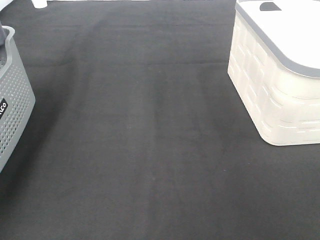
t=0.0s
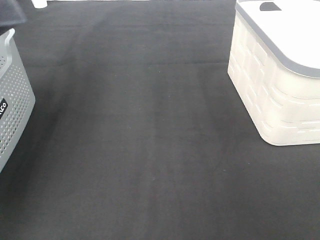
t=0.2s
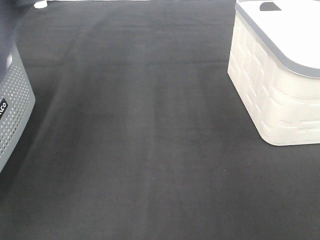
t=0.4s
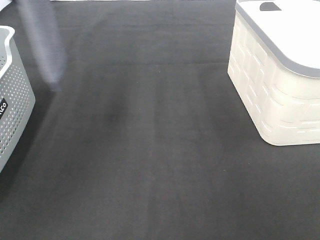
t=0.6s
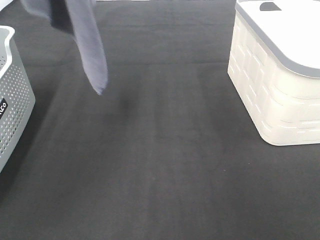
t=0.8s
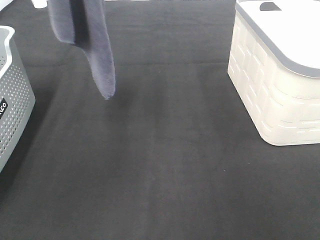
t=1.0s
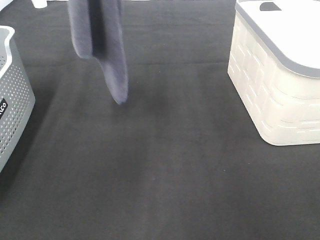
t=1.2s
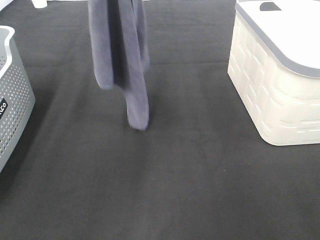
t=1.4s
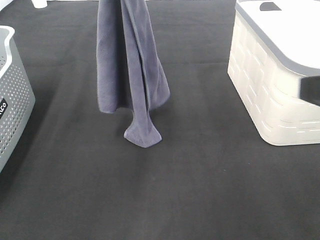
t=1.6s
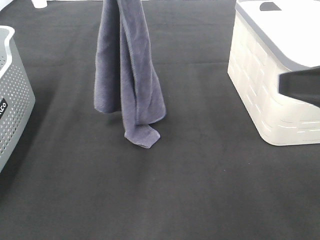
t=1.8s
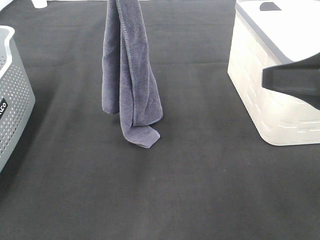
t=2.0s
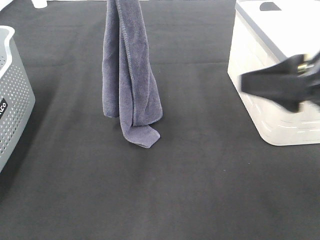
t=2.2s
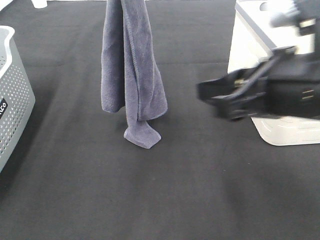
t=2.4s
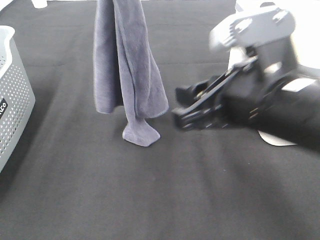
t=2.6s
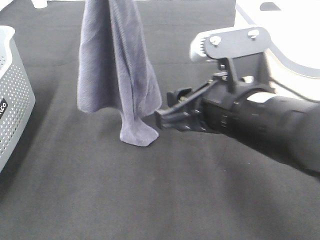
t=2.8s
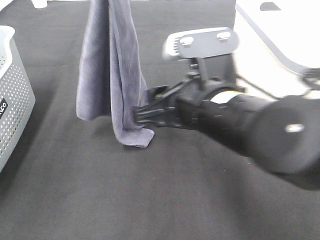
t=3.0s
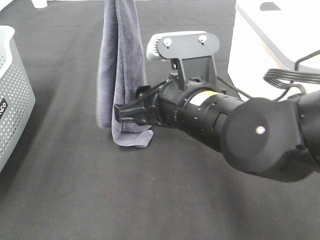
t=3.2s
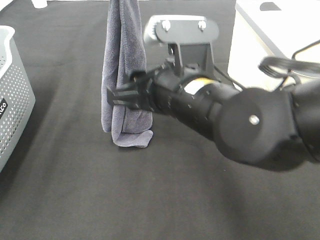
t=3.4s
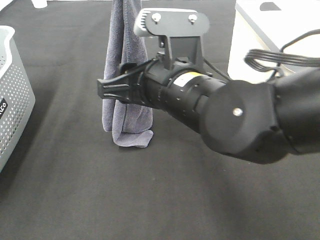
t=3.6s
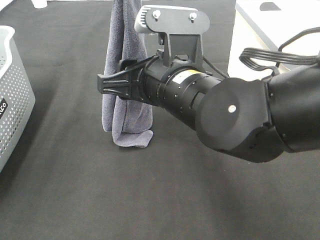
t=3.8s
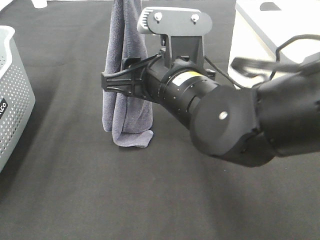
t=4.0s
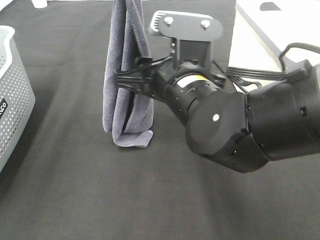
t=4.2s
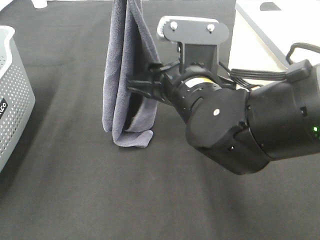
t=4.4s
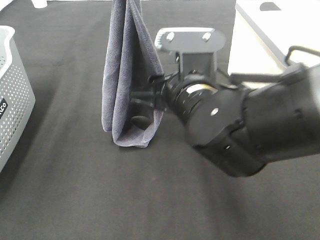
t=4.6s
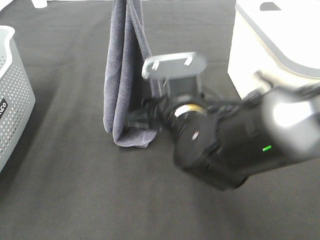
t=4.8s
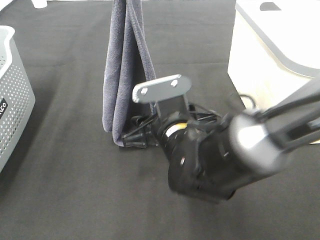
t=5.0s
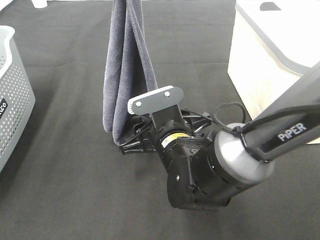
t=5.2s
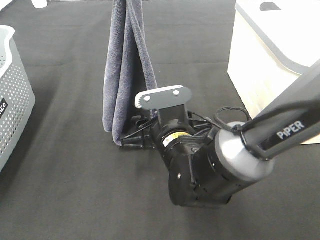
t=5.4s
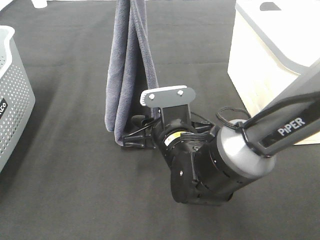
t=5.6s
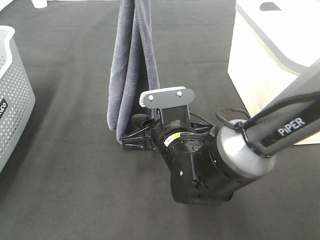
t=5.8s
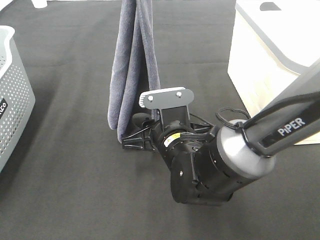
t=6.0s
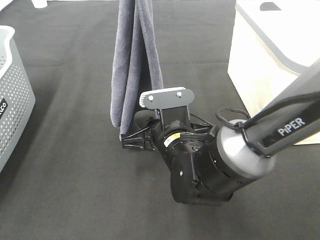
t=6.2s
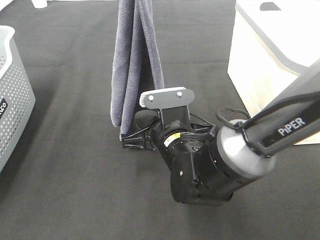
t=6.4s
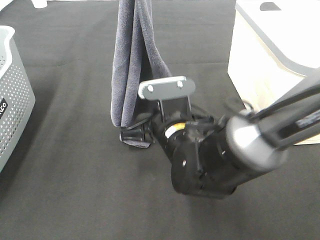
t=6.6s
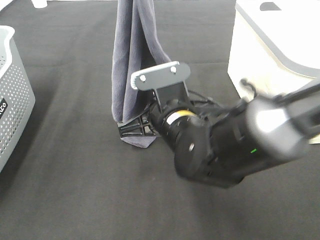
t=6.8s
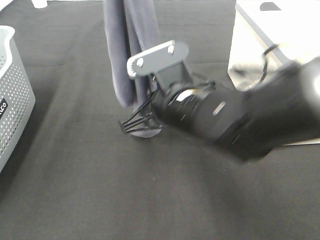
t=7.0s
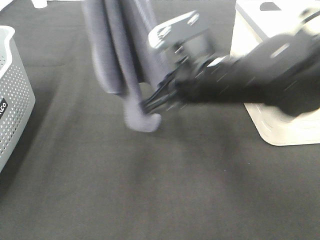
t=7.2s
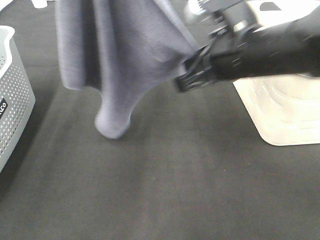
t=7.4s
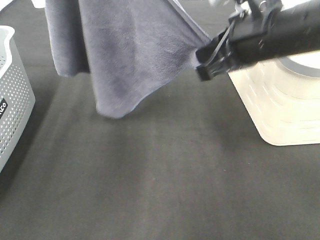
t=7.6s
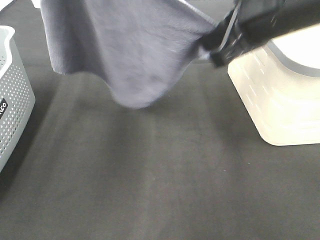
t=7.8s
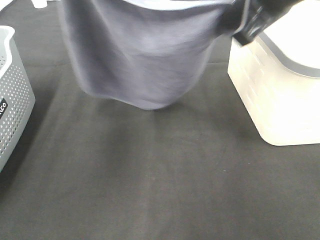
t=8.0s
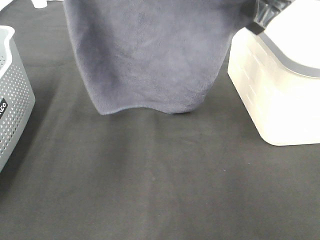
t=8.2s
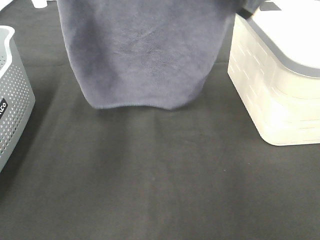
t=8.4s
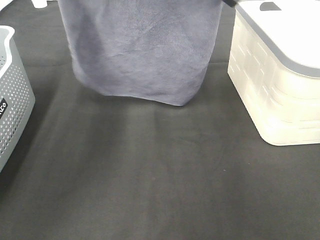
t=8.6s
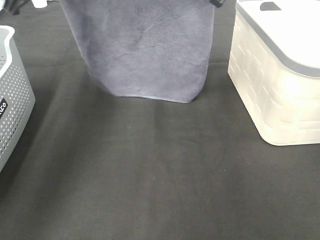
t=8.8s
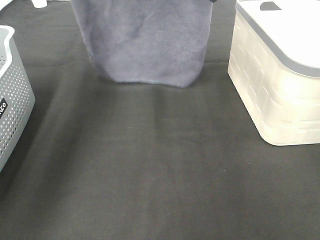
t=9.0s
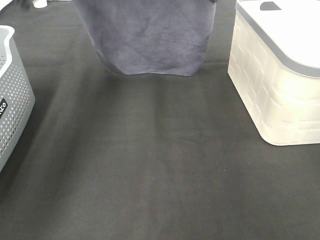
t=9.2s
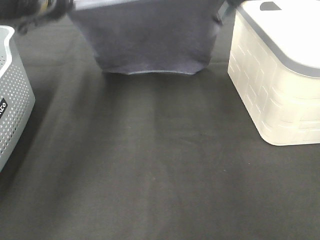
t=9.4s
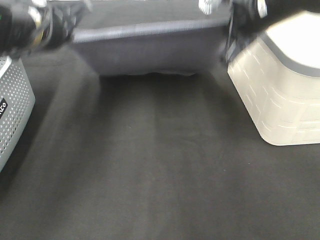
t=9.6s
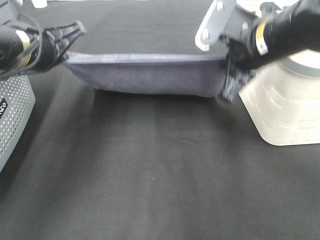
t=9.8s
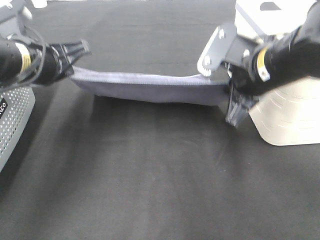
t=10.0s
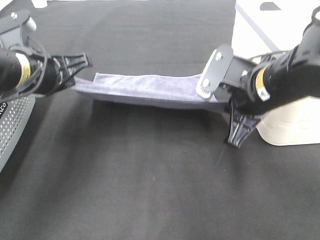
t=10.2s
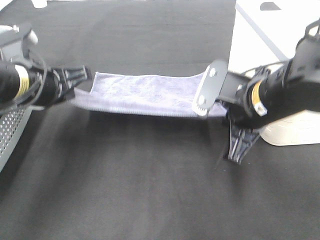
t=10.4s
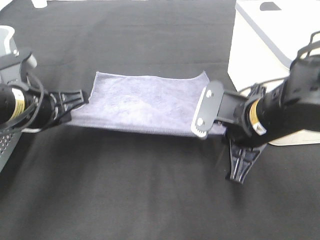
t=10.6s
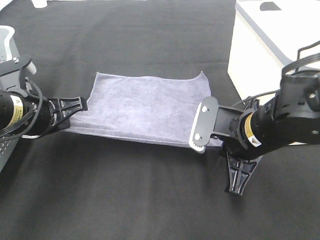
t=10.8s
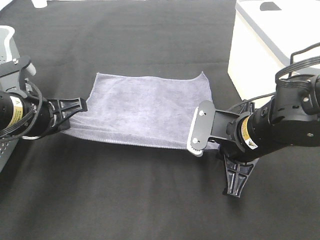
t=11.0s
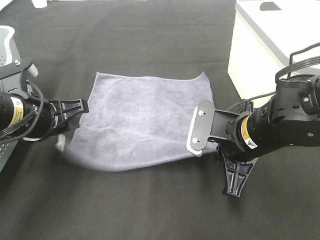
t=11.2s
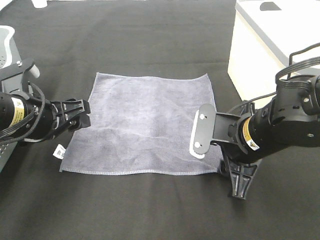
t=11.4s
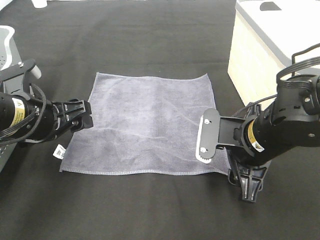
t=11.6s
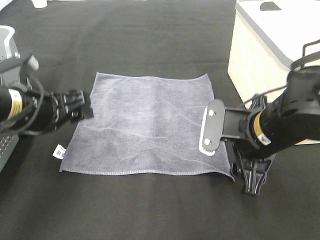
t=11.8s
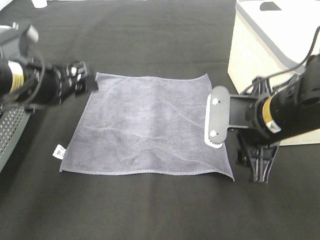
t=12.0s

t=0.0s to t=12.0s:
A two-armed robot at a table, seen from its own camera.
Task of the whole recording: Remove the towel and place it.
Step, t=0.0s to t=4.8s: Right hand: grab a corner of the grey towel and straighten it.
Step, t=5.0s to t=7.2s: Left hand: spread the grey towel flat on the table.
Step, t=5.0s to t=7.2s: Right hand: spread the grey towel flat on the table.
t=0.0s to t=1.6s: The right gripper is displaced forward by some 10 cm. The left gripper is displaced to the right by about 20 cm.
t=1.6s to t=3.0s: The right gripper shifts about 20 cm to the left, downward and forward; the left gripper changes place by roughly 5 cm.
t=4.4s to t=6.0s: The right gripper is displaced downward by about 10 cm.
t=6.0s to t=7.6s: The left gripper is displaced to the left and upward by roughly 15 cm, while the right gripper shifts about 20 cm upward and to the right, and closes.
t=7.6s to t=9.0s: The left gripper goes some 20 cm forward and downward, while the right gripper shifts about 15 cm forward.
t=9.0s to t=10.4s: Both grippers travel together backward and downward, about 25 cm.
t=10.4s to t=12.0s: The left gripper opens, while the right gripper opens.

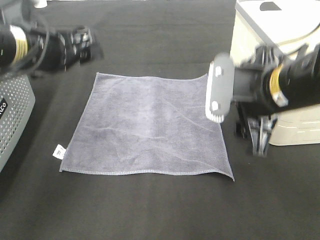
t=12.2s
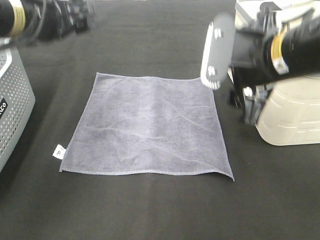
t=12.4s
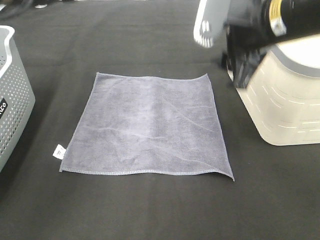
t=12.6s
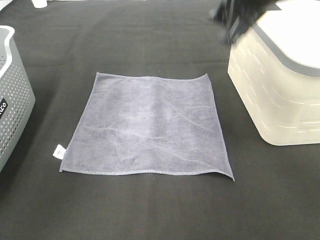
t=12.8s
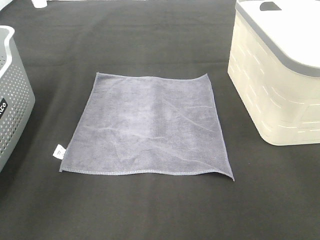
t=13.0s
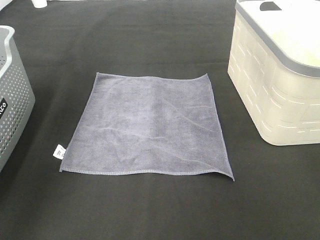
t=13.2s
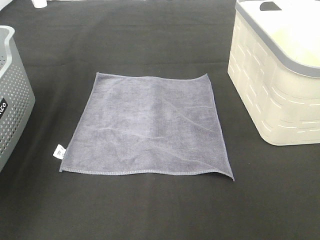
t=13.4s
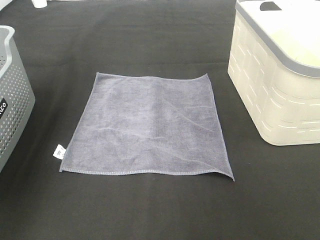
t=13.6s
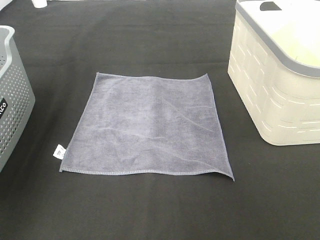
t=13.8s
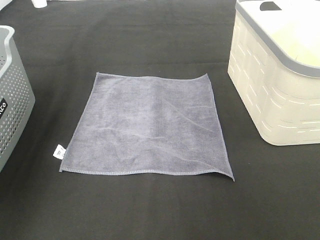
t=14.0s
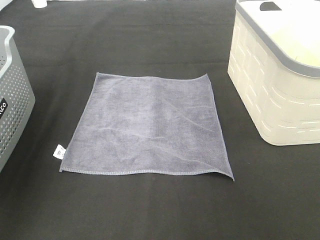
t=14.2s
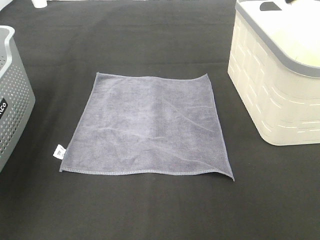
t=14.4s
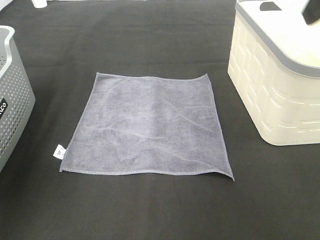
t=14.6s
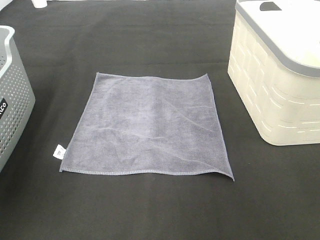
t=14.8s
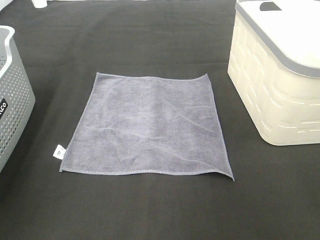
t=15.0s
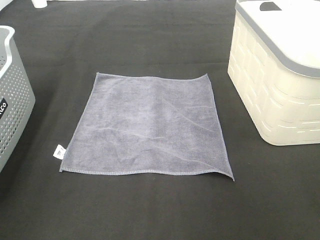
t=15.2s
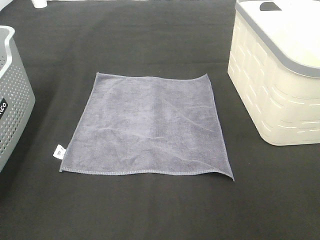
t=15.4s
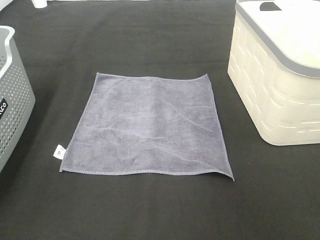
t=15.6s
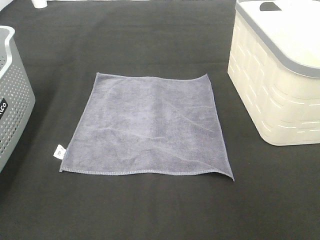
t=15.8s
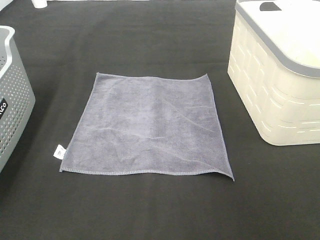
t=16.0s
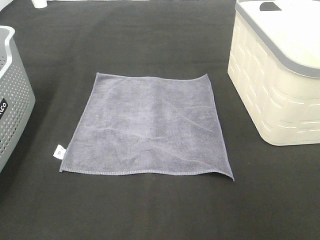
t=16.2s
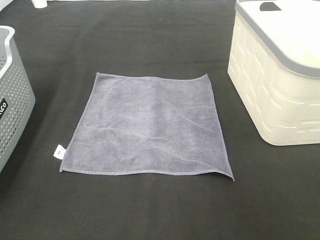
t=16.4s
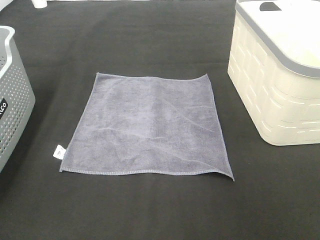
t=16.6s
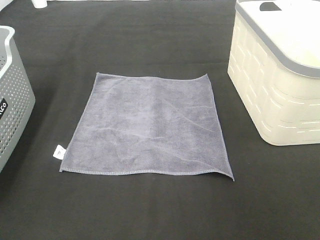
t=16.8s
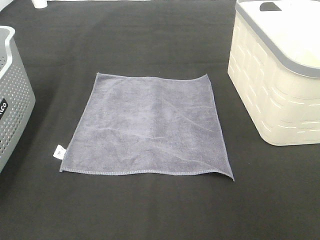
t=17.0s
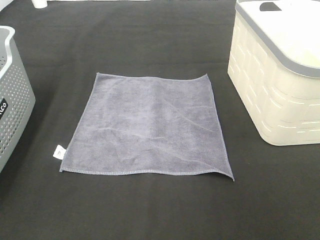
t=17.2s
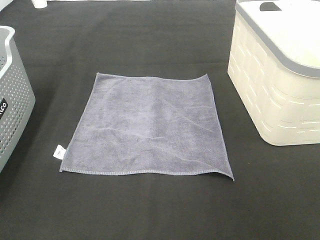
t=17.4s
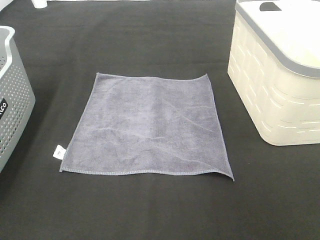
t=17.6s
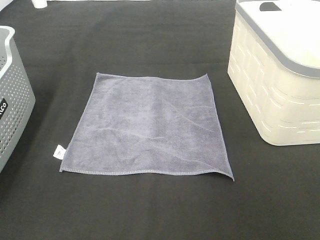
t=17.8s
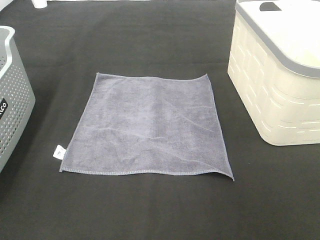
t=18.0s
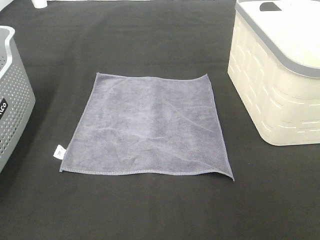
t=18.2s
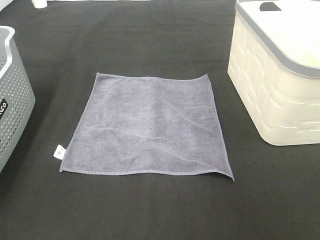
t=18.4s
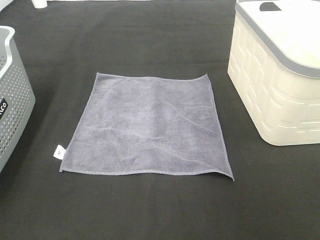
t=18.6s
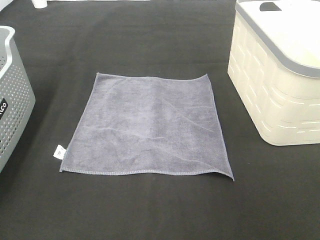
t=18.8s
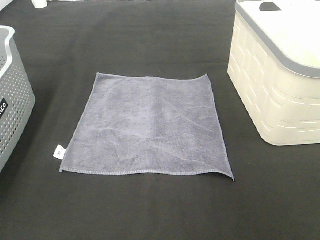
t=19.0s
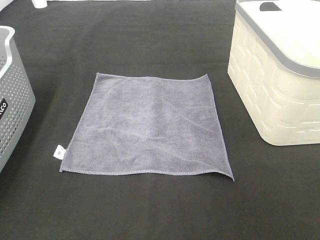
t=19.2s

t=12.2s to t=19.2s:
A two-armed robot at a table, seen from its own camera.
Task of the whole recording: Remove the towel and place it.
t=12.2s to t=13.6s: The right gripper goes roughly 20 cm upward and forward. Meanwhile the left gripper goes roughly 20 cm upward and to the left.
t=13.6s to t=15.0s: Both grippers move backward, some 20 cm.
